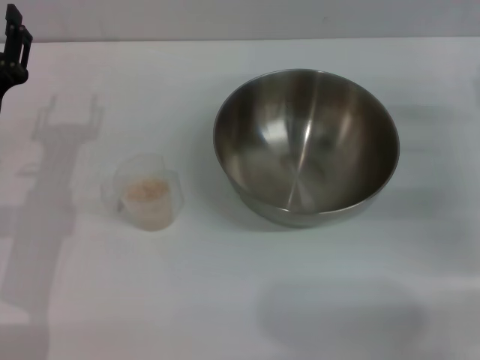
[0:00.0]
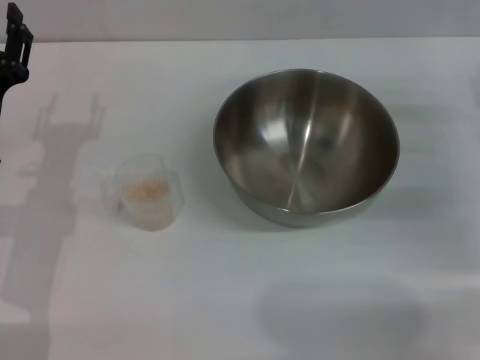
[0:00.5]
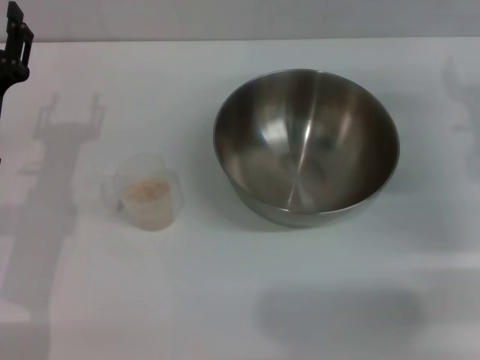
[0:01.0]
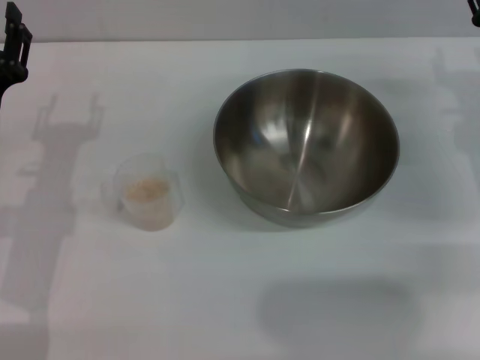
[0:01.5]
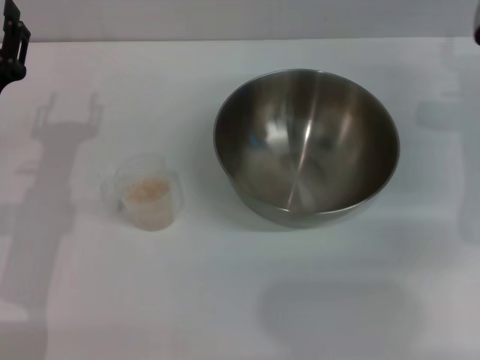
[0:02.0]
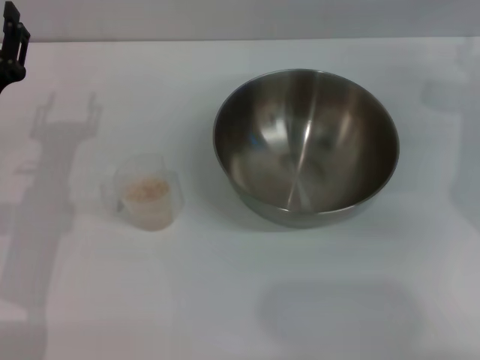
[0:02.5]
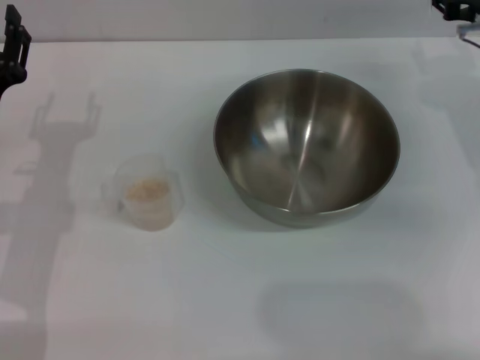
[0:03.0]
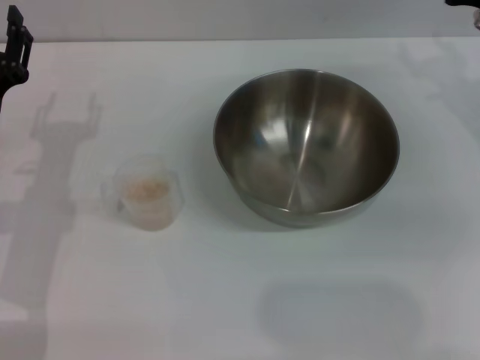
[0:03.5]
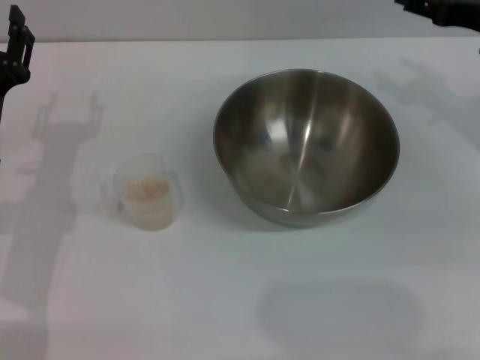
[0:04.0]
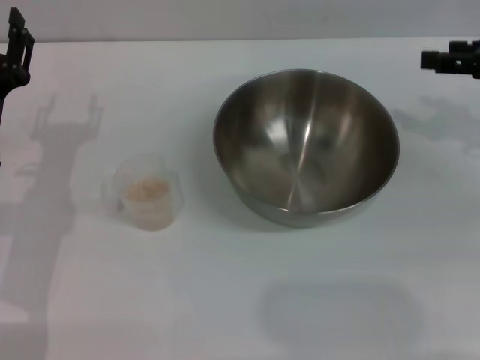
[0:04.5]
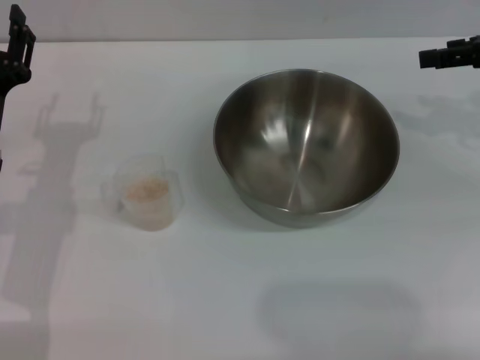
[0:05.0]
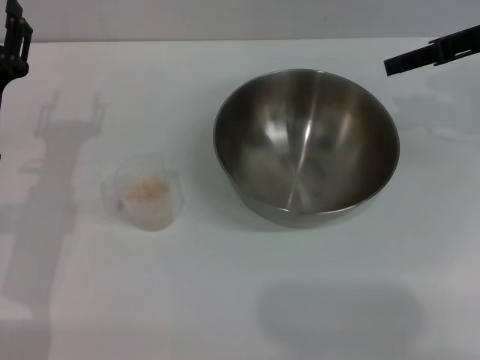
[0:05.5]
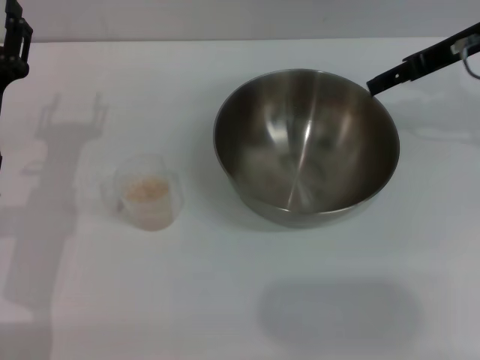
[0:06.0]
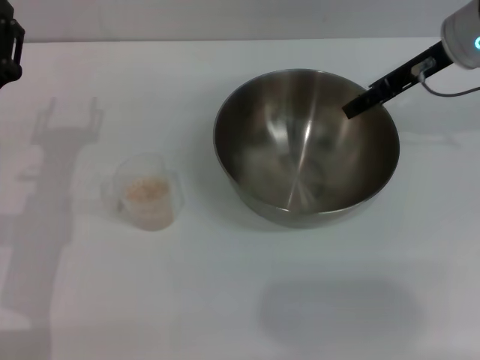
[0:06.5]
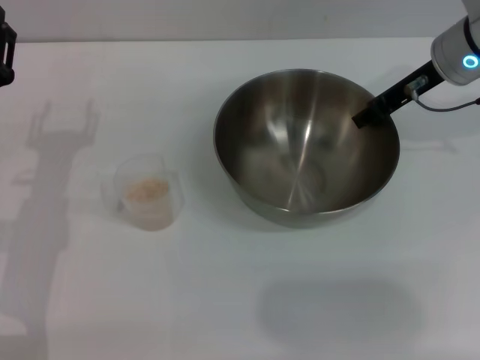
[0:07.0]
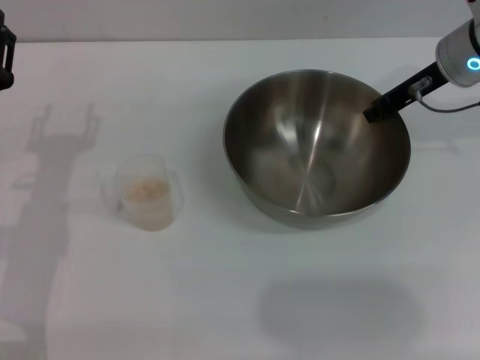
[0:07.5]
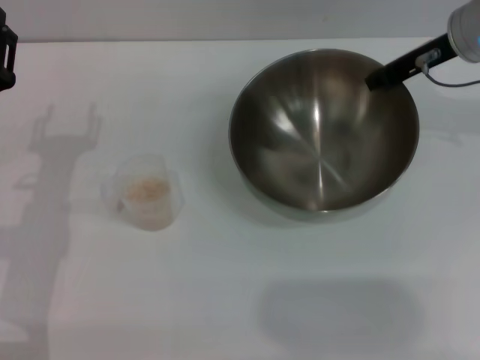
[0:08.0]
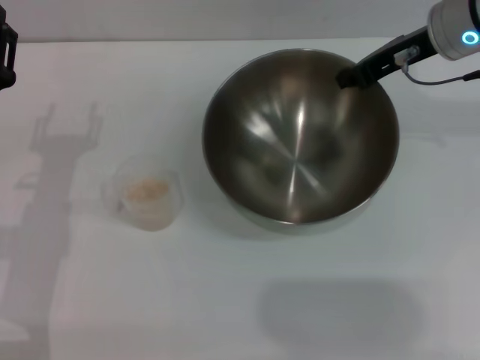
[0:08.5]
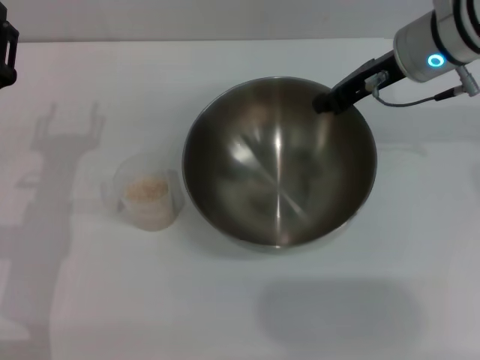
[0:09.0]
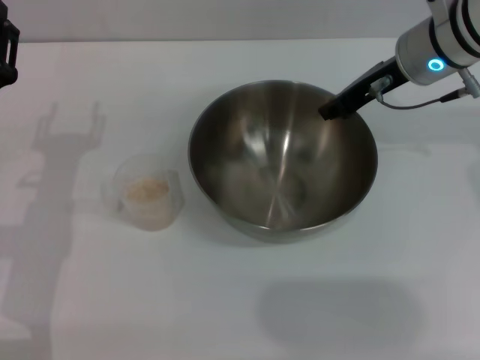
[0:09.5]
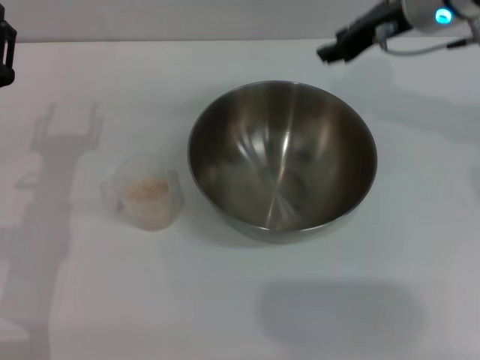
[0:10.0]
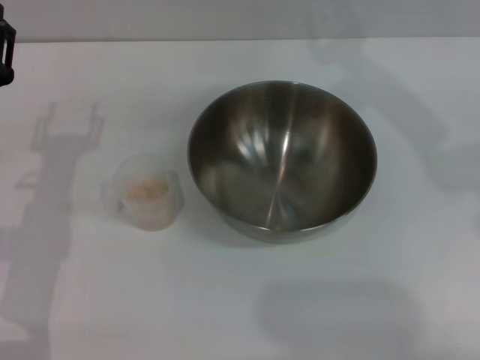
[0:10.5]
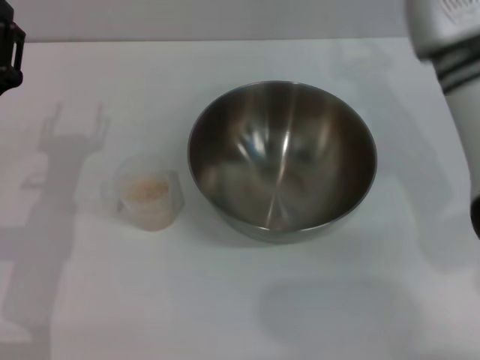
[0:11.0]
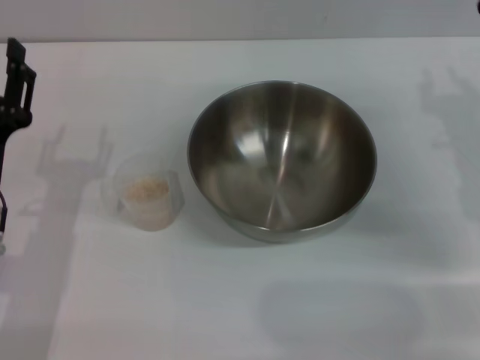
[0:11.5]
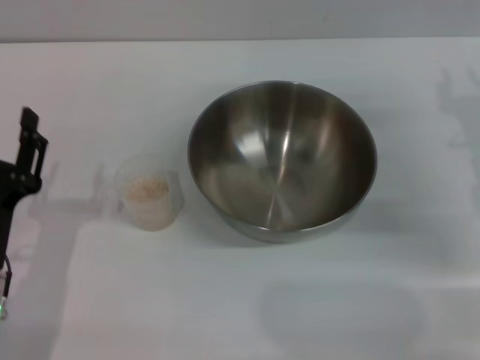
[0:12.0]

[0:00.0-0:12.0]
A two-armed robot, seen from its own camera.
Task of the whole recording: Place the bowl in the middle of the table with one hand and pour the rice from the grain cup into it with the other hand.
Step, 0:00.0 to 0:08.0: Pick up the bowl with the right gripper.
Step, 0:08.5 to 0:09.5: Place the bowl in the center of view with the right gripper.
0:00.0 to 0:02.0: The right gripper goes about 10 cm forward.
0:02.0 to 0:04.0: The right gripper travels upward by about 5 cm.
0:04.0 to 0:06.0: The right gripper shifts by about 5 cm.
0:06.0 to 0:08.0: The right gripper closes.
0:08.0 to 0:10.0: The right gripper goes roughly 5 cm to the left, and opens.
0:10.0 to 0:12.0: The left gripper moves backward, approximately 10 cm, while the right gripper moves downward, backward and to the right, some 20 cm.

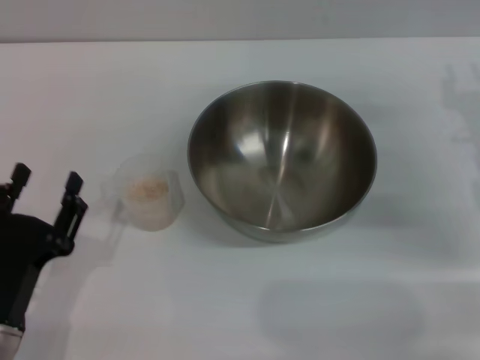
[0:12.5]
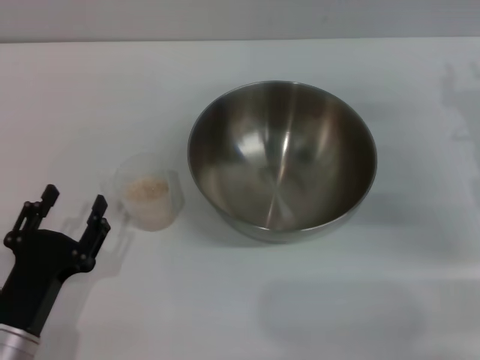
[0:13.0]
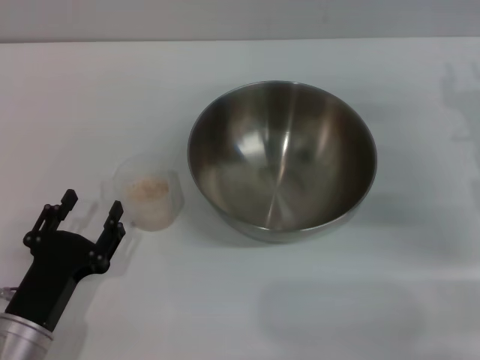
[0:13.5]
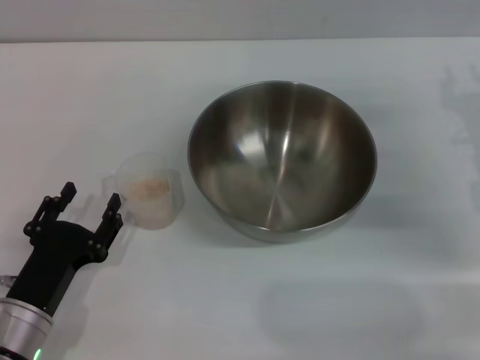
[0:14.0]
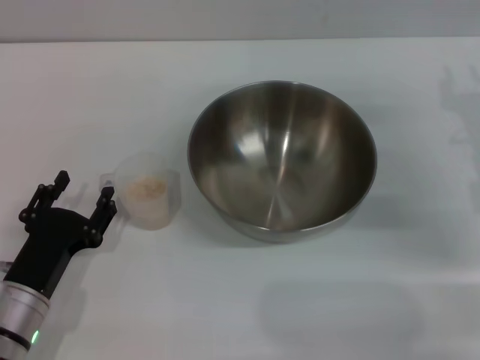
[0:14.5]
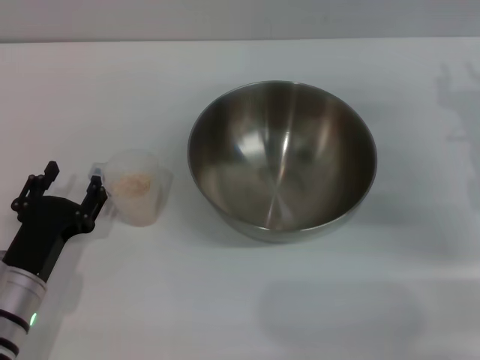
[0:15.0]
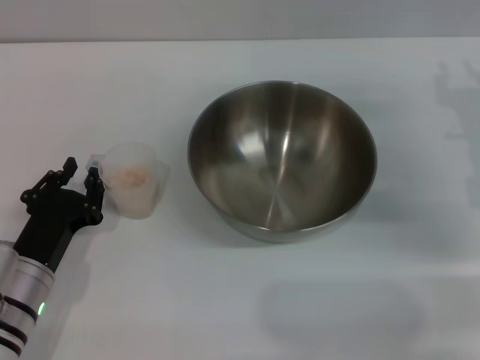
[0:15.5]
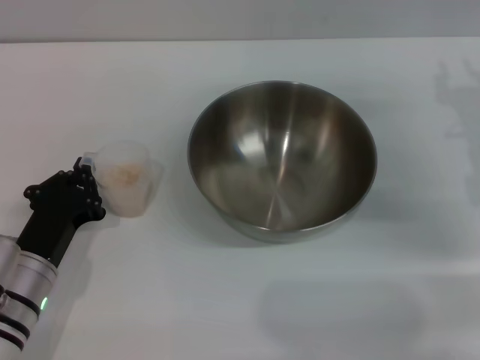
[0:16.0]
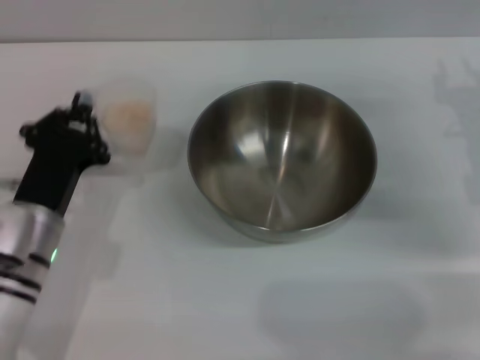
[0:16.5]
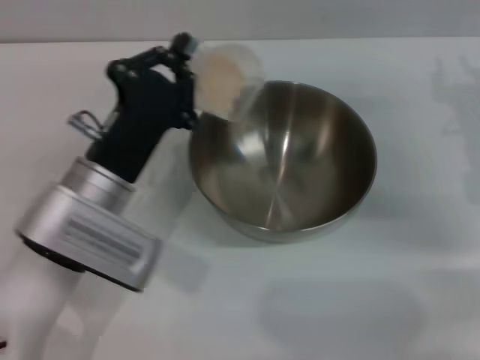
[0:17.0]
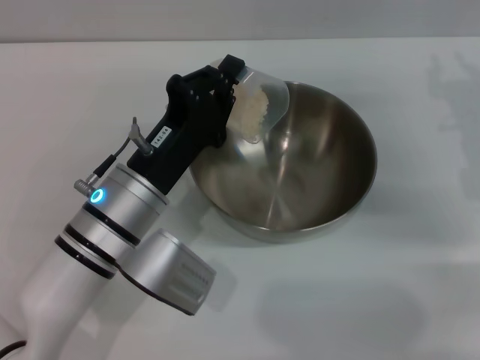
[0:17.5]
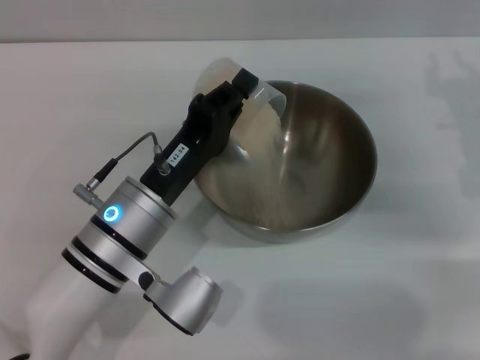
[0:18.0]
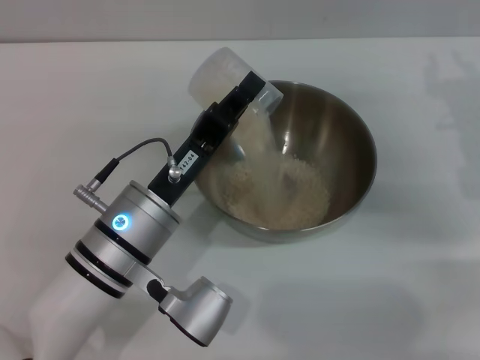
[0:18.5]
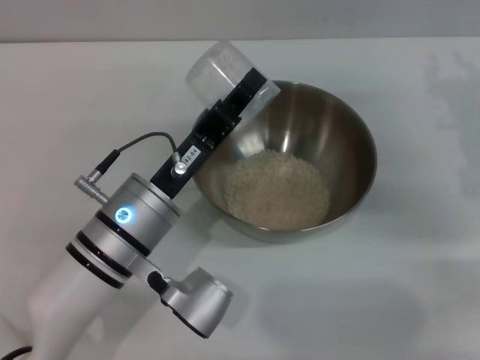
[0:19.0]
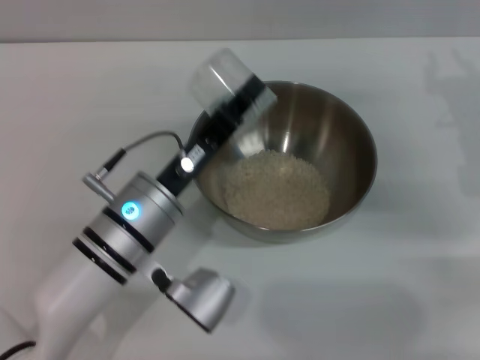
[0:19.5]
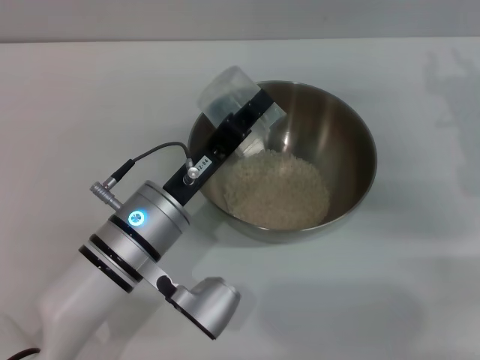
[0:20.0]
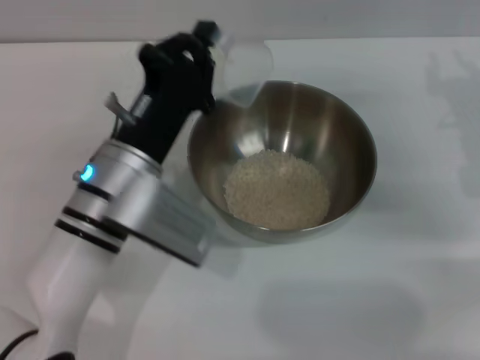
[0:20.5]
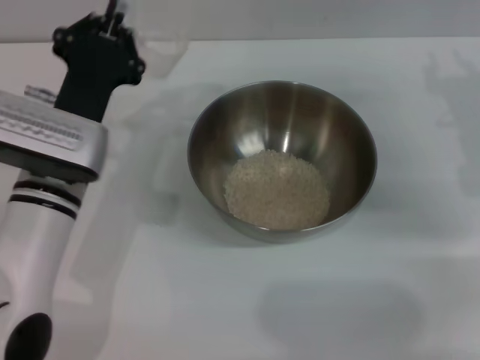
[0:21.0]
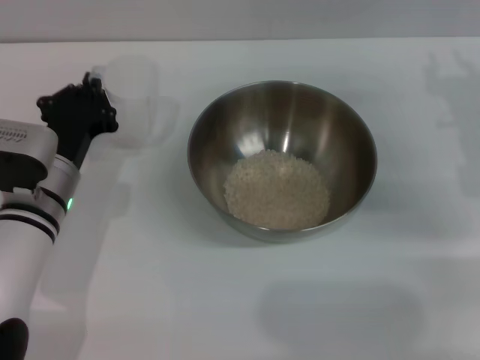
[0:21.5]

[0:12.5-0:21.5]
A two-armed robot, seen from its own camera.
Task of the whole recording: Place the bowl in the middle of the table with one hand and pour the rice from the grain cup into it with the other hand.
Step, 0:12.5 to 0:16.0: Pick up the cup with rice in it with the left gripper.
Step, 0:17.0 to 0:20.0: Pour the rice from the cup into the bowl with the left gripper.
0:12.5 to 0:14.5: There are only small adjustments of the grippers.
0:14.5 to 0:17.0: The left gripper shifts approximately 15 cm to the right, upward and forward, and closes.
0:19.5 to 0:21.5: The left gripper travels to the left by about 10 cm.

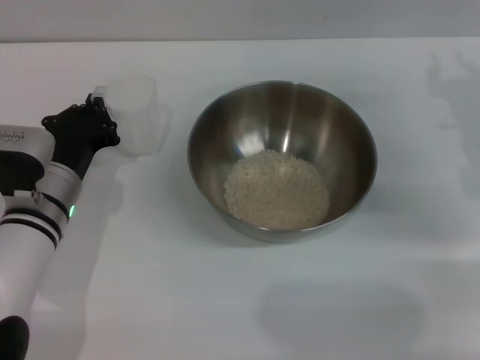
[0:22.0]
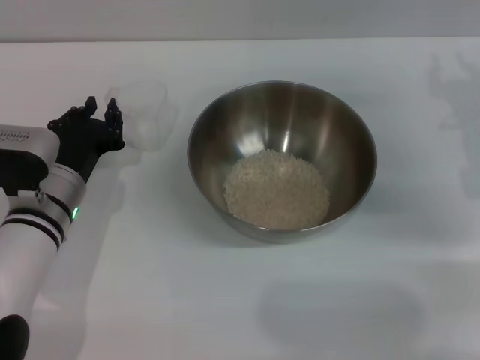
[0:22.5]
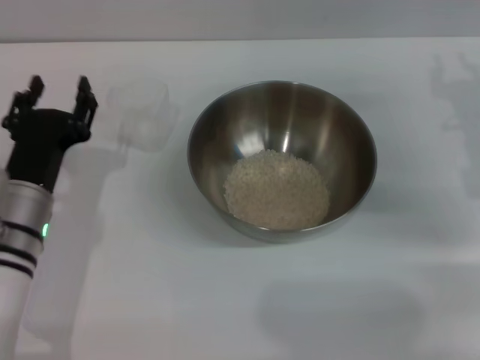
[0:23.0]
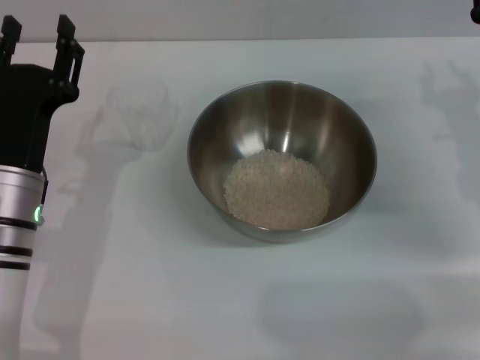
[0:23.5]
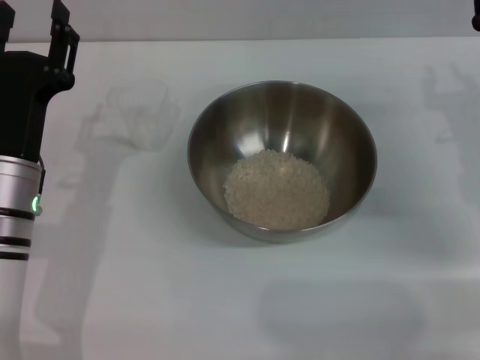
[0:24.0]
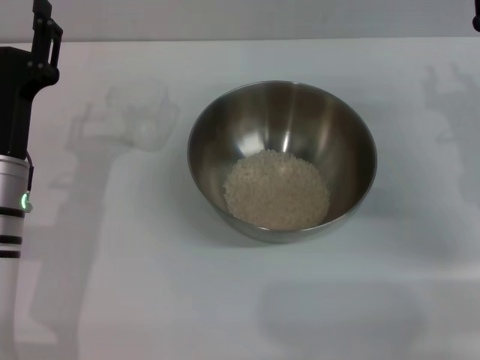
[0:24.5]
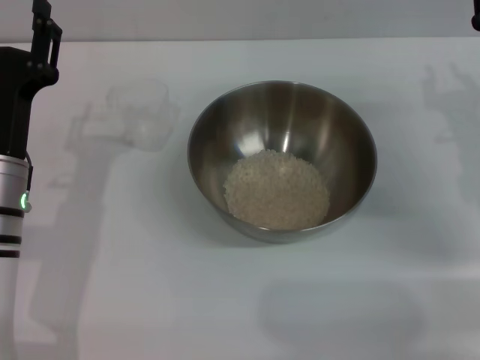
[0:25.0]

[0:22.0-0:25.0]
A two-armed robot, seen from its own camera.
Task of the whole recording: Place the bowl in the middle of the table with one hand and pour the rice from the grain cup into it with the other hand.
0:22.0 to 0:23.5: The left gripper ends up roughly 5 cm from where it was, and opens its fingers.
0:23.5 to 0:25.0: Both grippers stay put.
